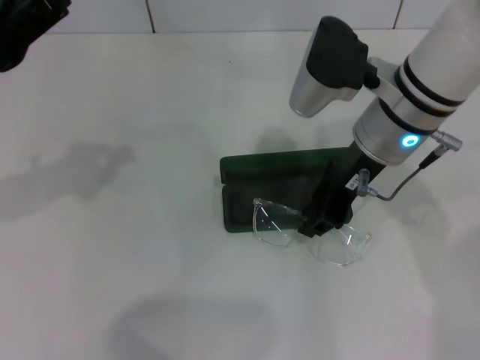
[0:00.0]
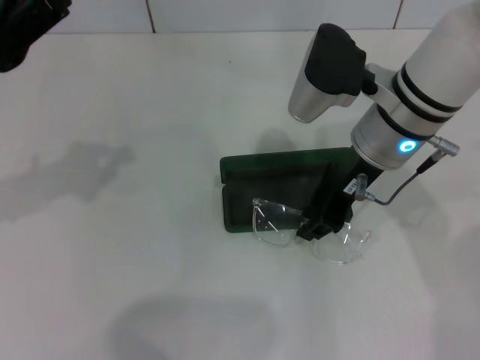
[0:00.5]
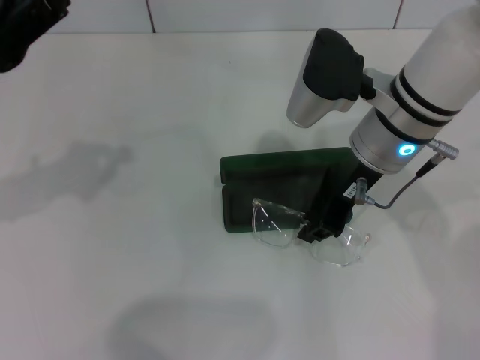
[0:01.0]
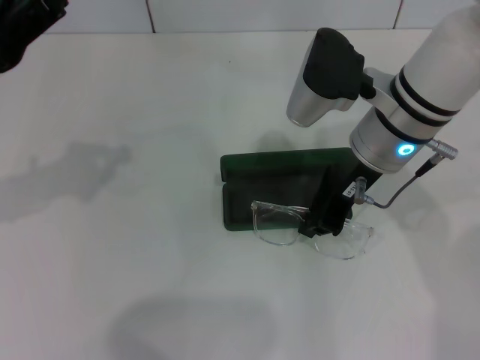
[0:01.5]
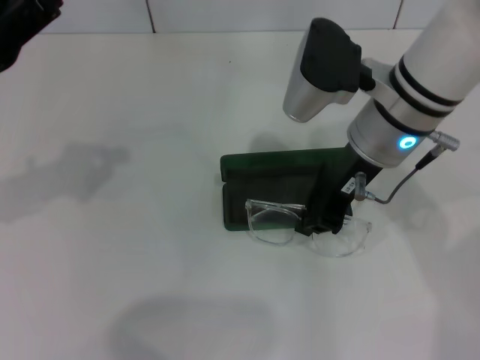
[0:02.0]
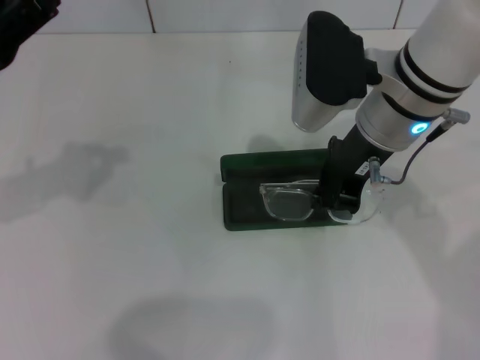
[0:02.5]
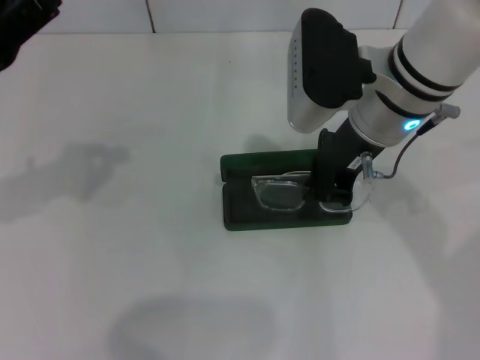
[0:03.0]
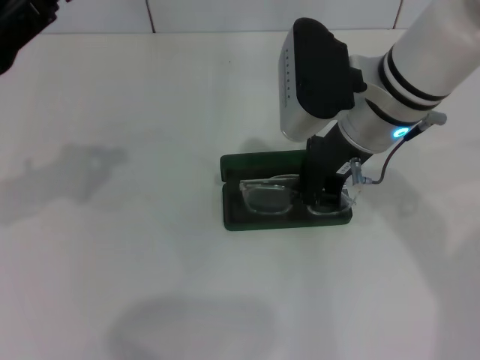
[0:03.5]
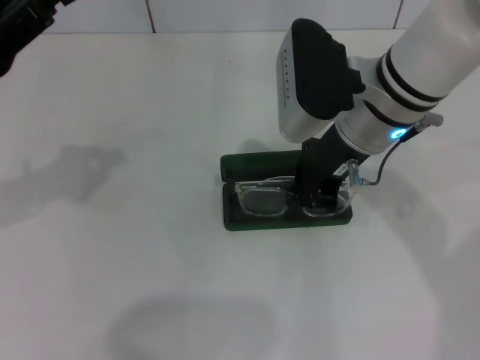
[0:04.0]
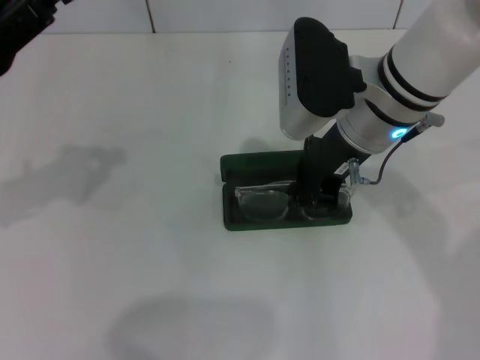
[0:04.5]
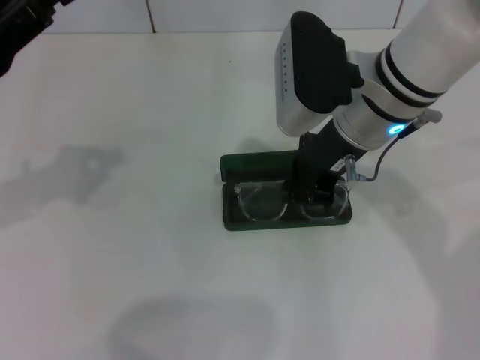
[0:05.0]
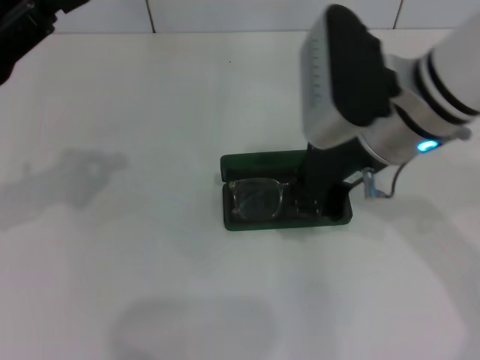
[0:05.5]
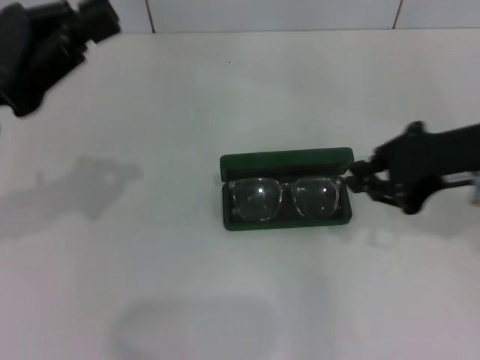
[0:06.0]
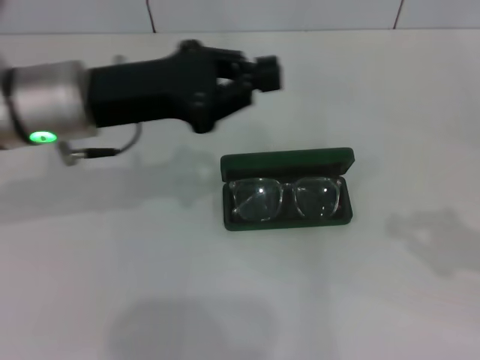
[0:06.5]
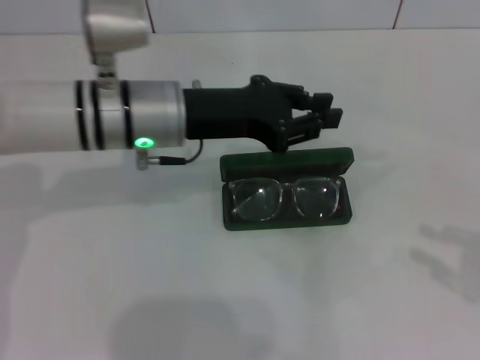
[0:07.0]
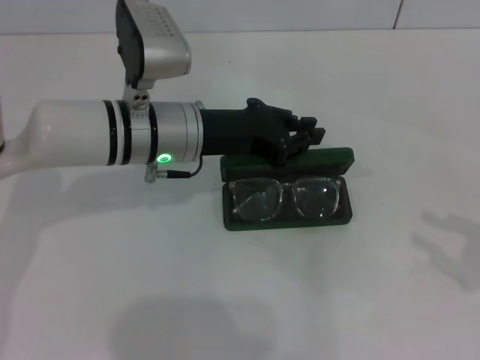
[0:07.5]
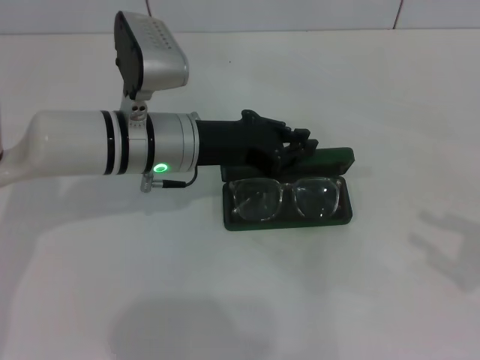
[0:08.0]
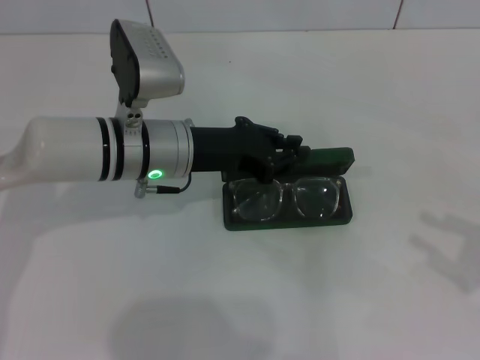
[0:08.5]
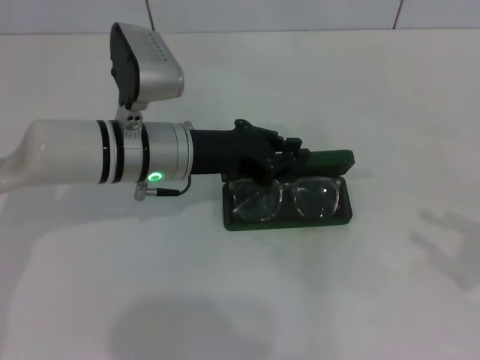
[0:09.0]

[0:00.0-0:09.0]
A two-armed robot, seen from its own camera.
Step, 0:00.0 to 0:05.0: Put the glasses into the case with your right hand.
0:00.0 to 0:02.0: The right gripper closes up.
0:02.0 to 0:04.5: There are only small adjustments of the grippers.
0:04.5 to 0:07.0: The right gripper shifts about 35 cm to the right and backward, while the left gripper moves to the right and forward, roughly 20 cm.
0:07.0 to 0:09.0: The right gripper opens.

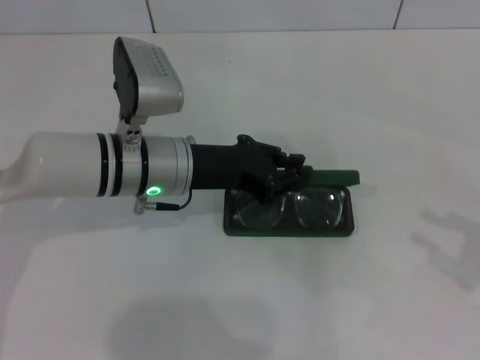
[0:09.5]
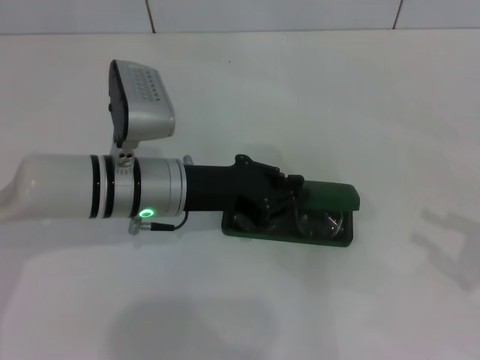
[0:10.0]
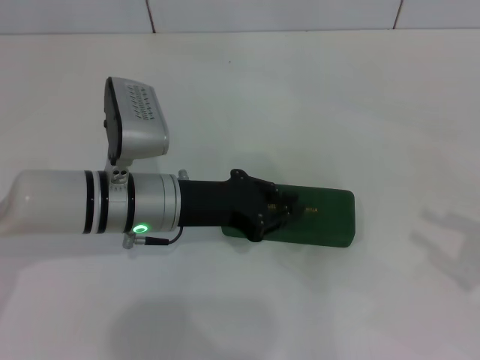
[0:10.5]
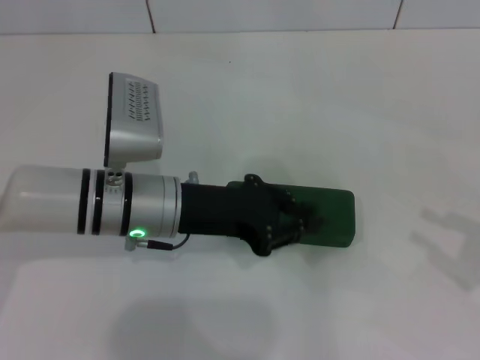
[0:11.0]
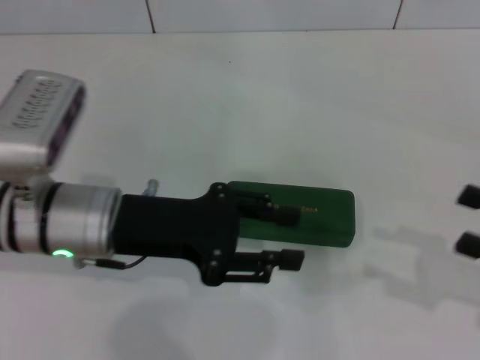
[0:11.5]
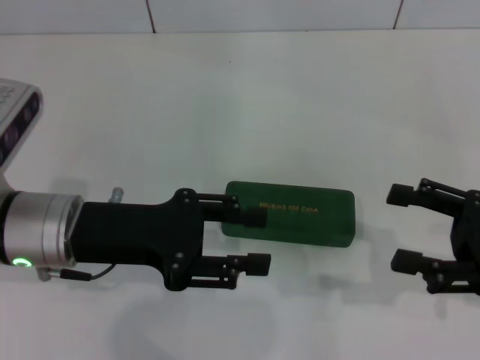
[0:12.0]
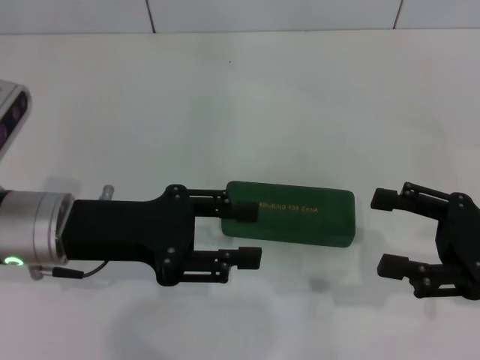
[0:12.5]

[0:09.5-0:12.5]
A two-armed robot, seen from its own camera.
0:09.5 to 0:11.0: There are only small adjustments of the grippers.
0:11.0 to 0:12.5: The right gripper moves to the left and forward, approximately 10 cm. Meanwhile the left gripper is displaced to the left by approximately 10 cm, and opens its fingers.

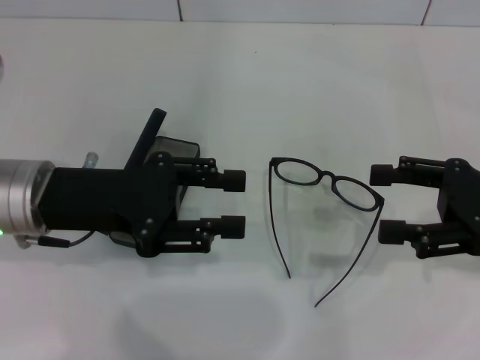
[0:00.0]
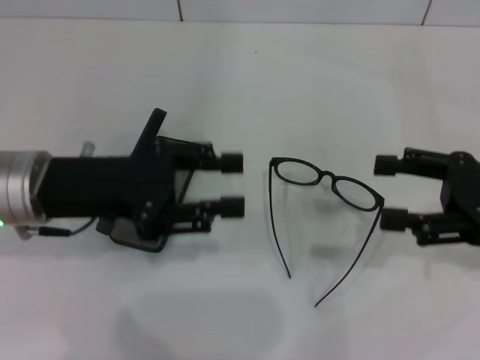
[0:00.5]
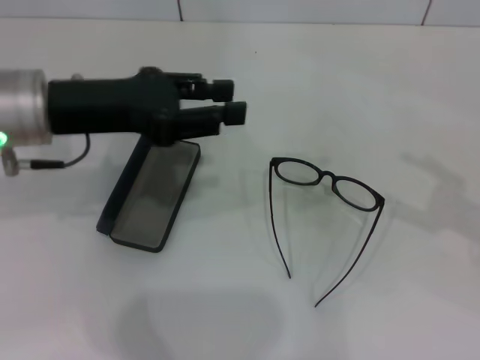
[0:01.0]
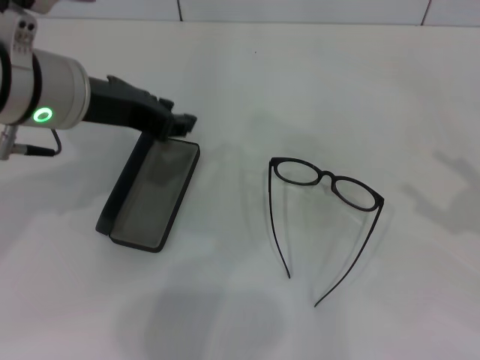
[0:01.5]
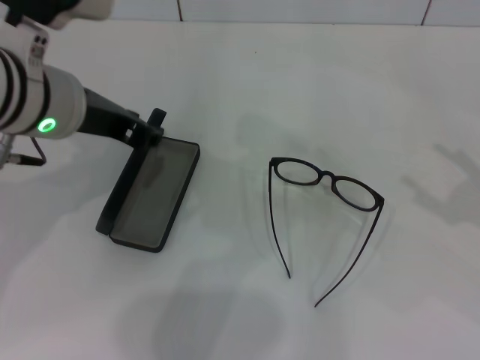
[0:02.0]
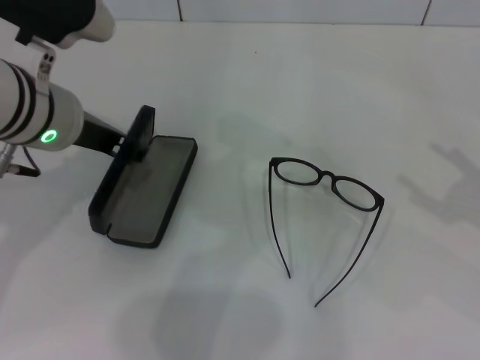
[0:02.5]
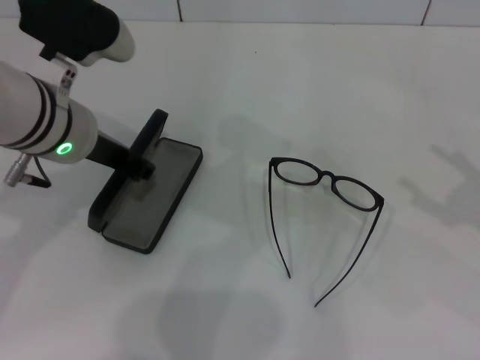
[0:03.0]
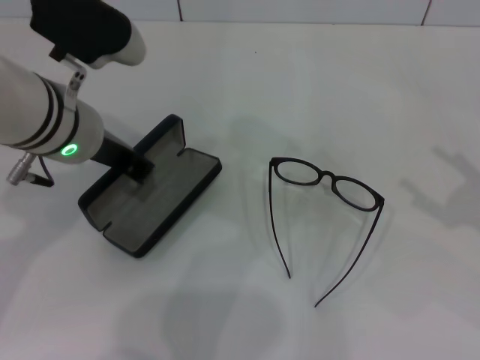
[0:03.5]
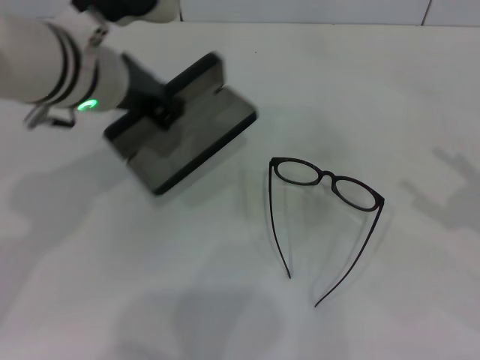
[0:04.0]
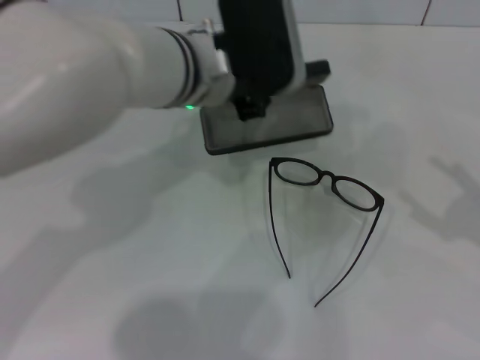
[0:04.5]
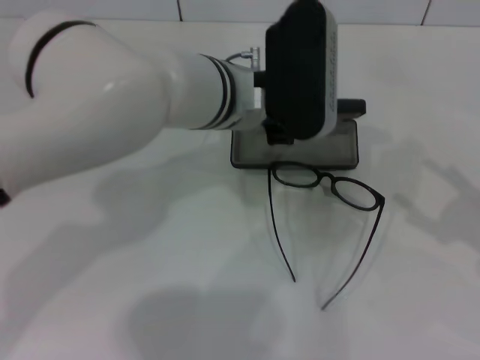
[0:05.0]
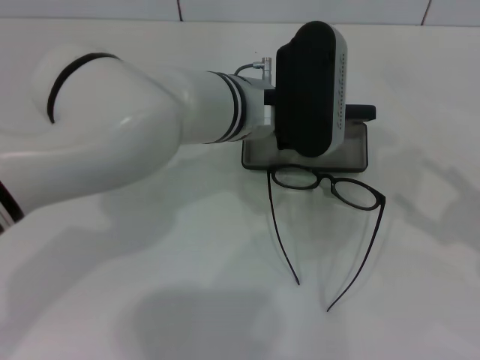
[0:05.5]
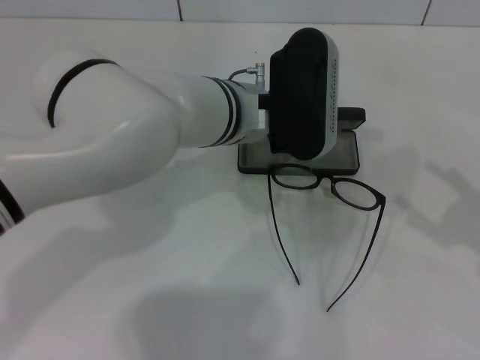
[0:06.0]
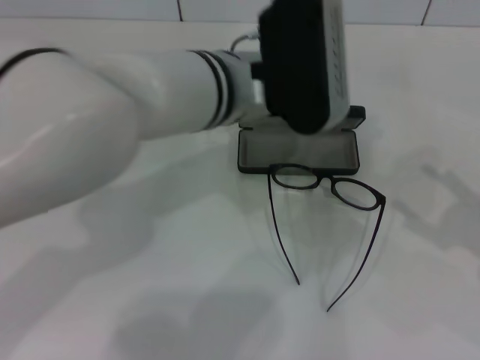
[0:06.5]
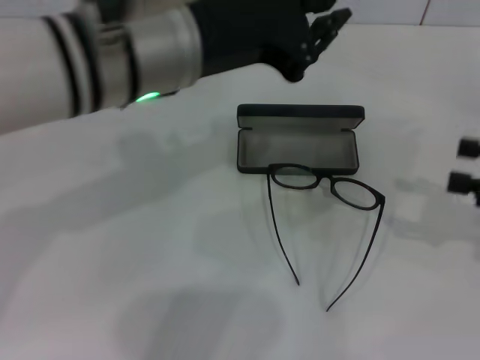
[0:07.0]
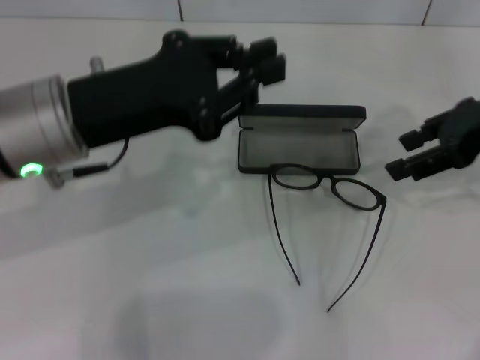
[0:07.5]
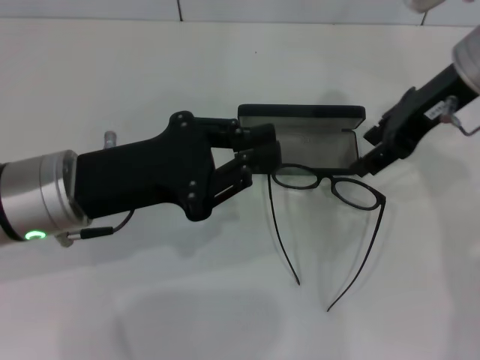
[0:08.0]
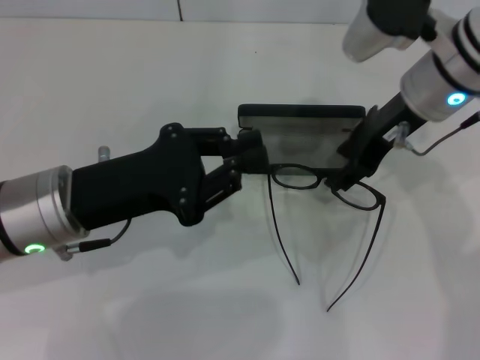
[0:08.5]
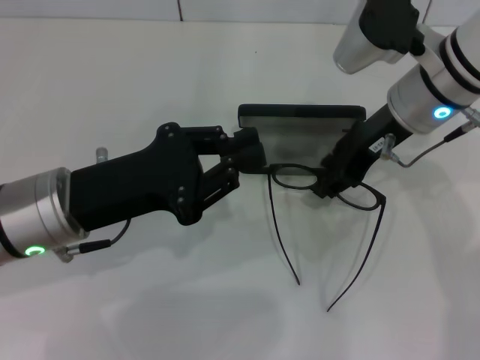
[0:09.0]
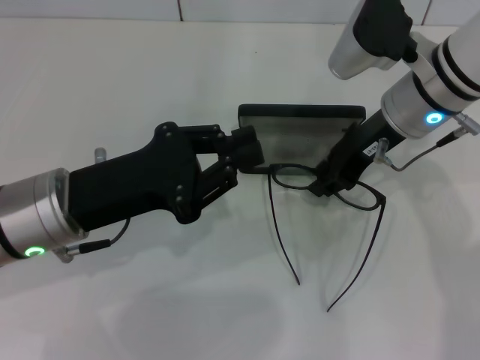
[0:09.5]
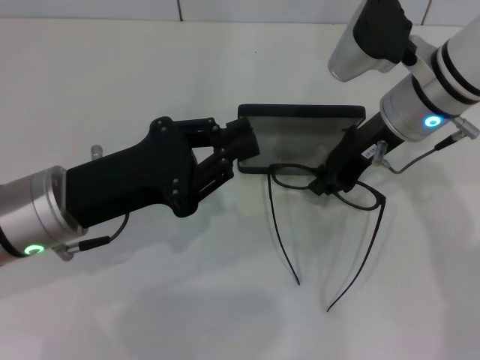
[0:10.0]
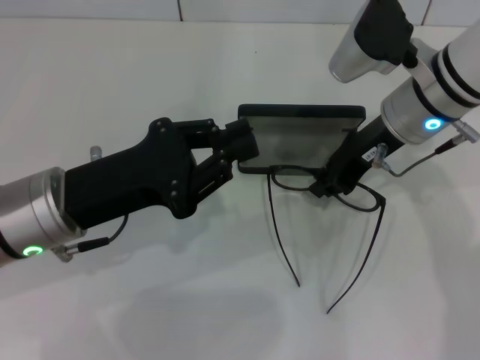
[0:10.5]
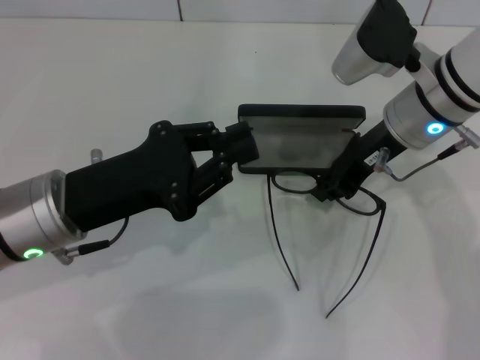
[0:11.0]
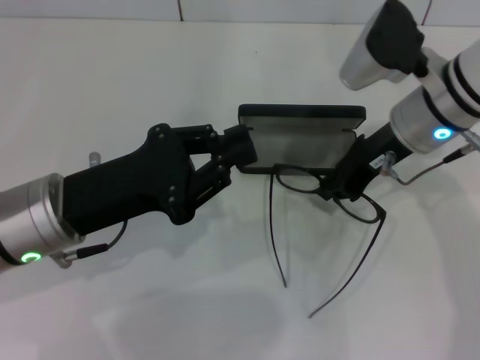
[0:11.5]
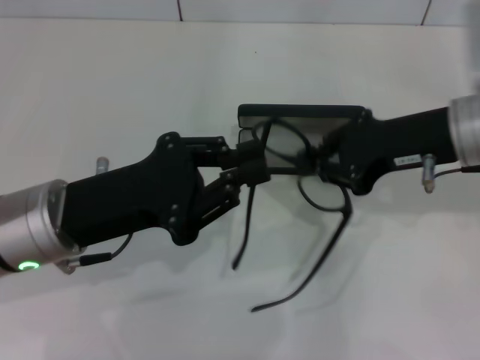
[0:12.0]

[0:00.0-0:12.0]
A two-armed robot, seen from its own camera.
Step, 0:00.0 to 0:03.0: Grab the glasses case with your left hand.
Step, 0:03.5 to 0:06.0: Place the glasses case in the center of the table with your left hand.
Step, 0:06.5 to 0:11.0: Grab the eyeglass frame with your right hand.
0:00.0 to 0:02.0: The left gripper heads upward, covering roughly 5 cm, and closes its fingers. Meanwhile the right gripper goes about 10 cm to the right.
0:02.0 to 0:04.0: The left gripper closes.
0:04.0 to 0:06.0: The left gripper is displaced to the right and downward by approximately 15 cm.
0:06.0 to 0:08.0: The right gripper moves forward, to the left and upward, about 25 cm. The left gripper heads to the left and backward, covering approximately 20 cm.
0:08.0 to 0:10.0: The right gripper shifts some 5 cm downward, and closes its fingers.
0:10.0 to 0:12.0: The right gripper travels backward and to the right by roughly 10 cm.

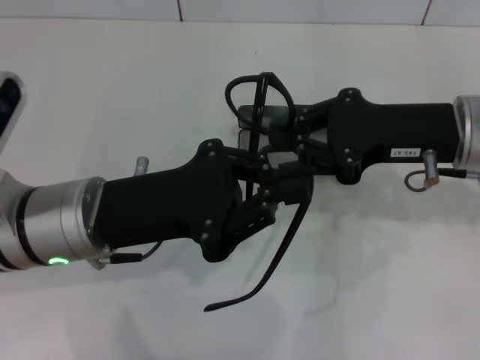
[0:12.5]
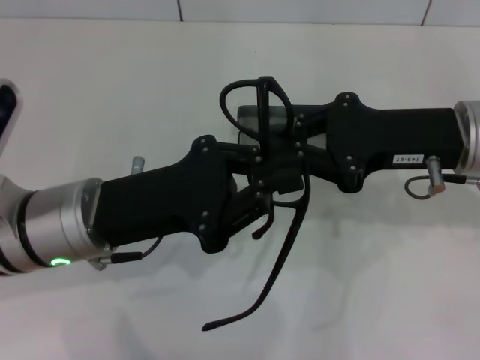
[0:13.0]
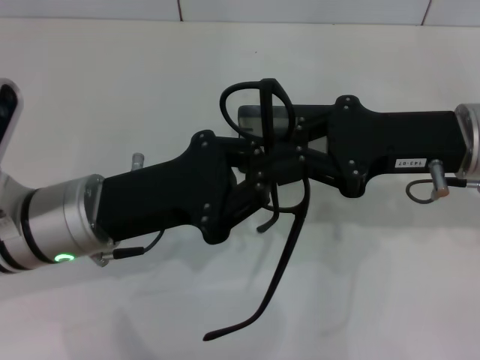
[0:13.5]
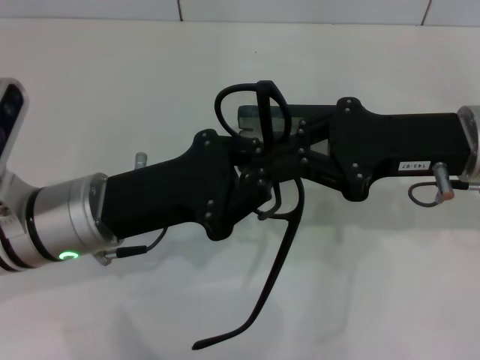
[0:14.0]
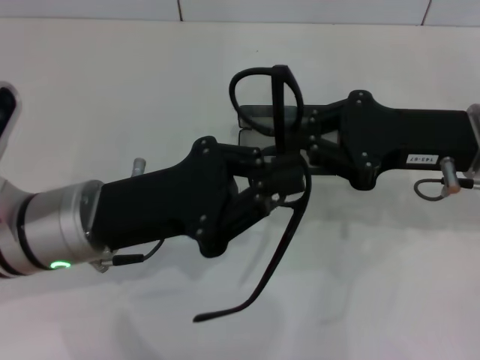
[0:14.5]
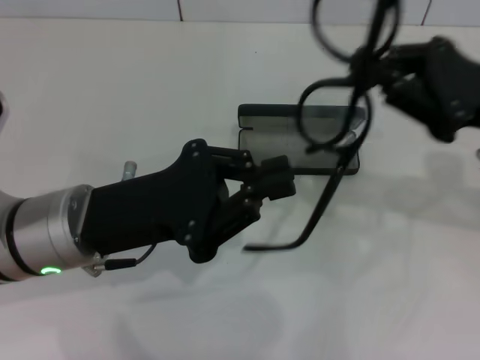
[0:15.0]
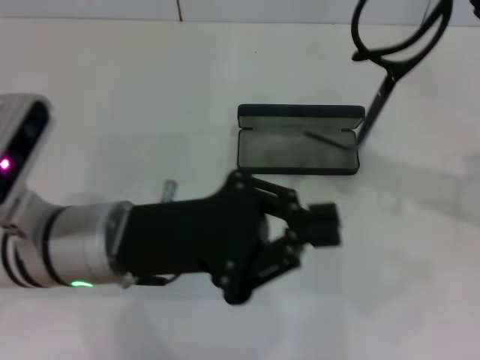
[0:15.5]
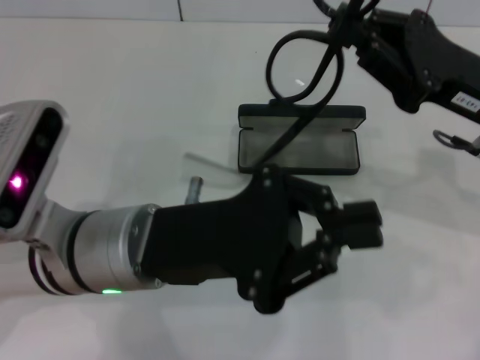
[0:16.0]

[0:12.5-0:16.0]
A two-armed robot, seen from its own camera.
0:12.5 to 0:14.5: The grippers move only a little.
